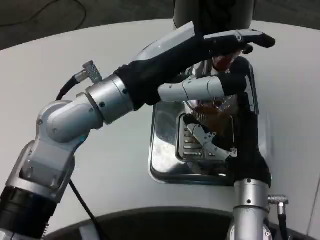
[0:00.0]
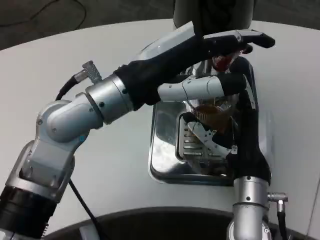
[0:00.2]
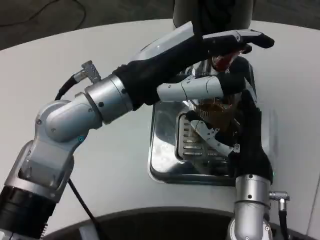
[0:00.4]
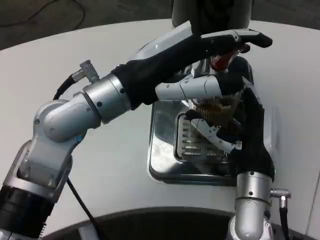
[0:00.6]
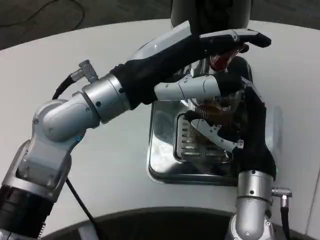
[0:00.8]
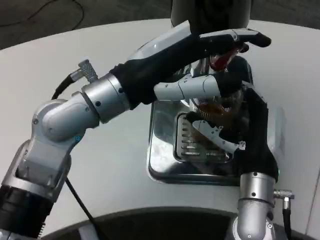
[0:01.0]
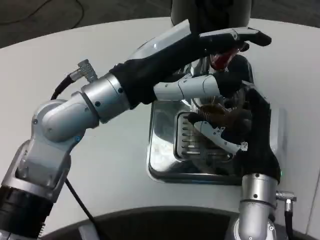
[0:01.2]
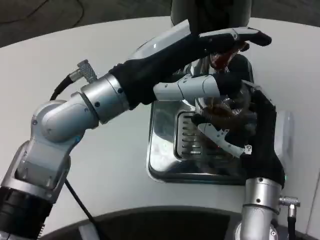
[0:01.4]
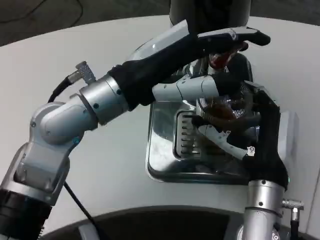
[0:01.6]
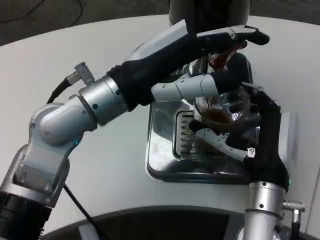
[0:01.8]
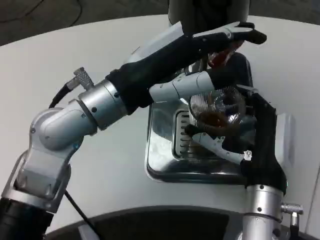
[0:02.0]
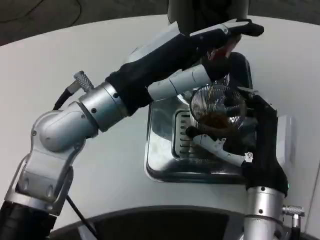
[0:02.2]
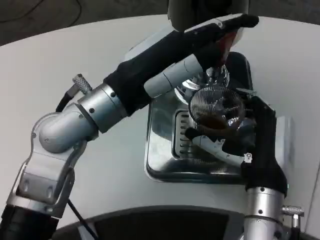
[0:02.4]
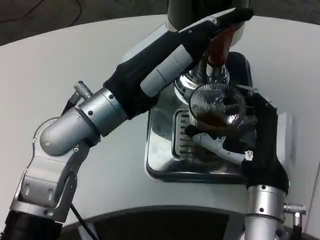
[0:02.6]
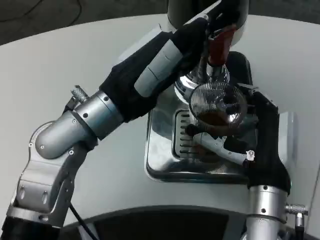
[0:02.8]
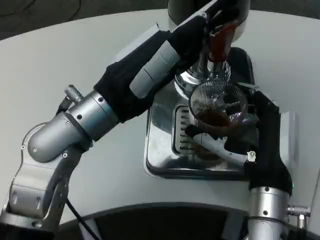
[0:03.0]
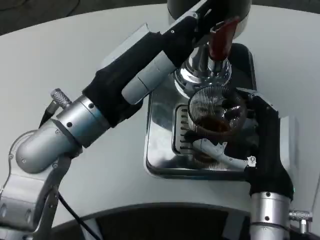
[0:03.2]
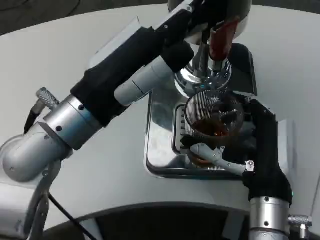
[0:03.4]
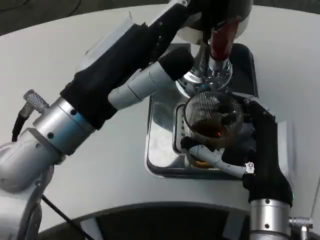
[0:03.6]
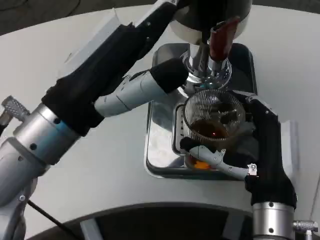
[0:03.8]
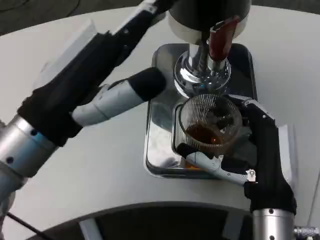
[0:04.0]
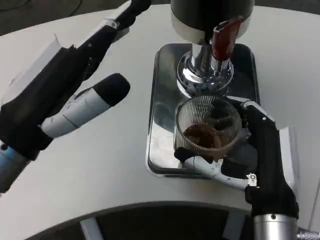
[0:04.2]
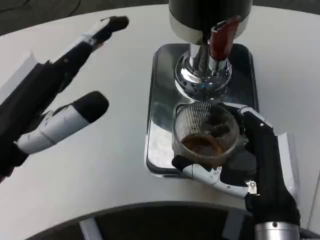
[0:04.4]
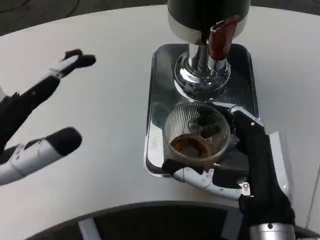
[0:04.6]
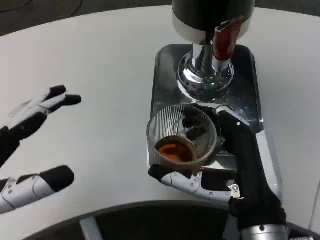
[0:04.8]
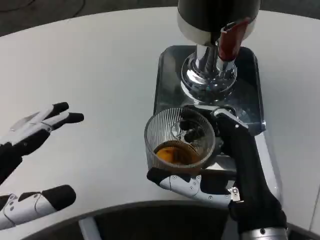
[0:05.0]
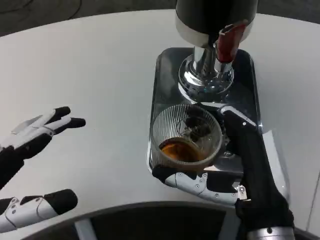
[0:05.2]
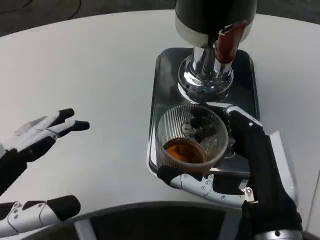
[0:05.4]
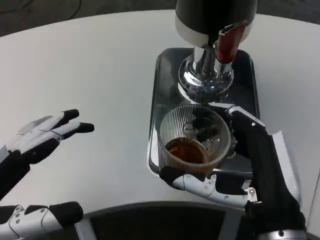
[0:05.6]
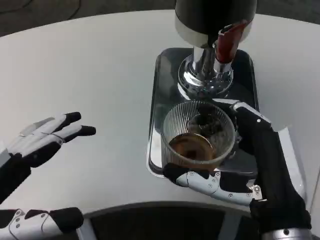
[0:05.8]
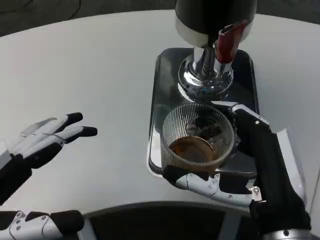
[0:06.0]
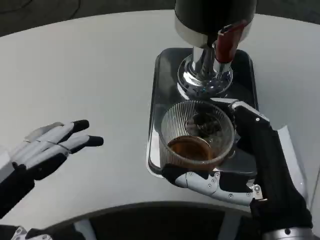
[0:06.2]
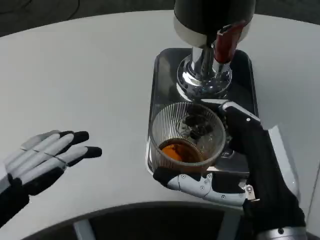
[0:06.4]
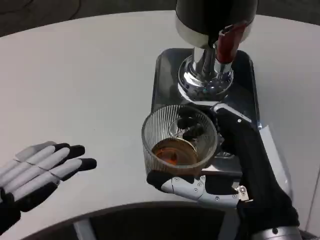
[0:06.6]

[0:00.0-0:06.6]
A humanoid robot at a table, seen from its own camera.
Task of the whole recording: Grasp the cup under the faucet to collect the drink, then remove the cup.
0:03.2 to 0:05.0: The left hand goes some 20 cm backward and to the left, while the right hand moves backward, some 5 cm.

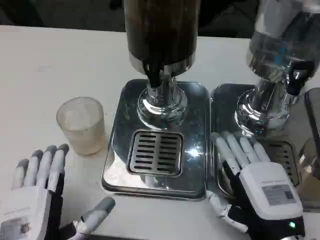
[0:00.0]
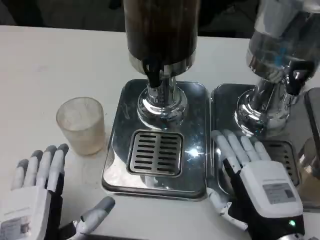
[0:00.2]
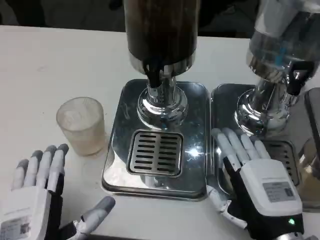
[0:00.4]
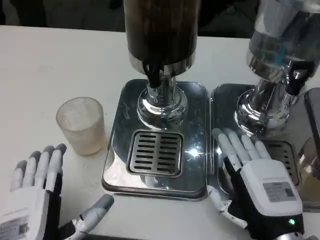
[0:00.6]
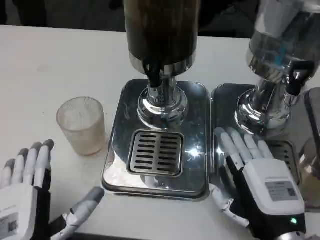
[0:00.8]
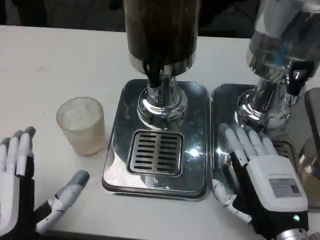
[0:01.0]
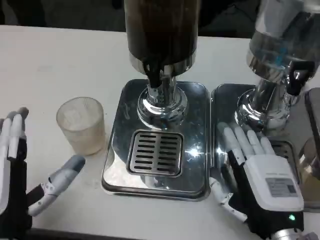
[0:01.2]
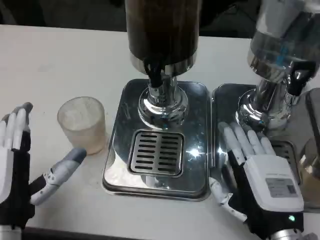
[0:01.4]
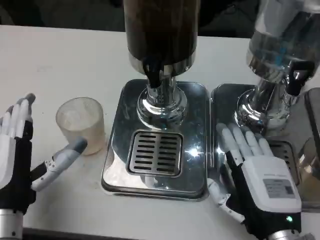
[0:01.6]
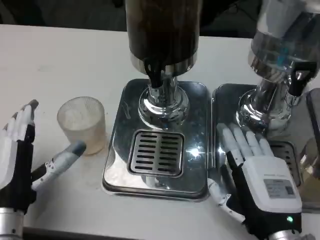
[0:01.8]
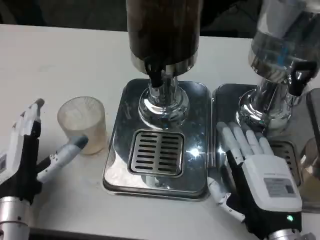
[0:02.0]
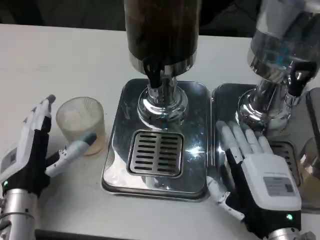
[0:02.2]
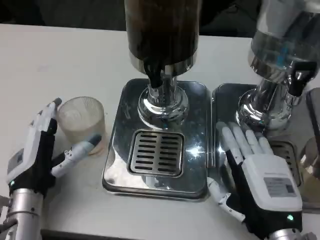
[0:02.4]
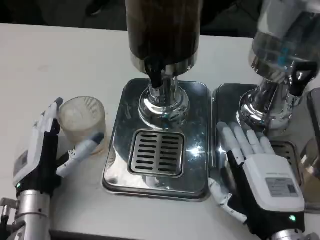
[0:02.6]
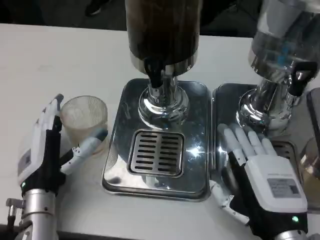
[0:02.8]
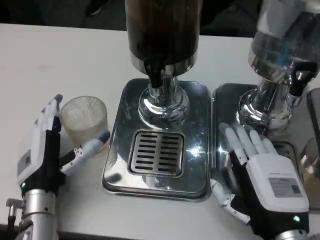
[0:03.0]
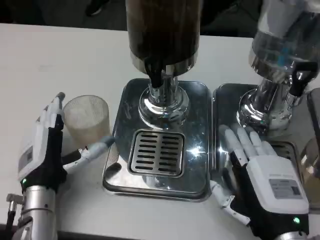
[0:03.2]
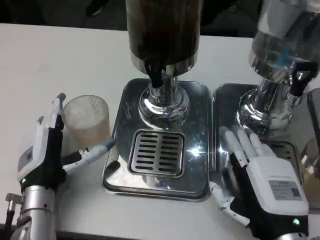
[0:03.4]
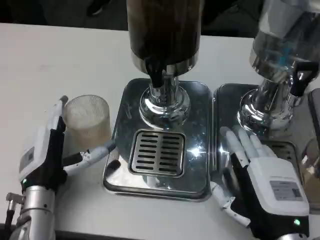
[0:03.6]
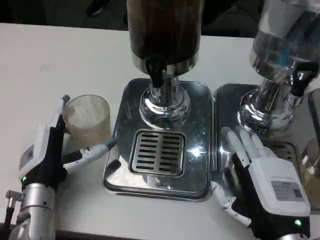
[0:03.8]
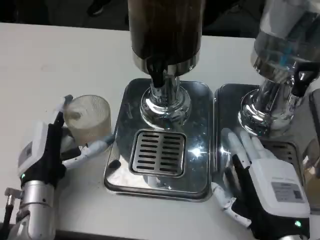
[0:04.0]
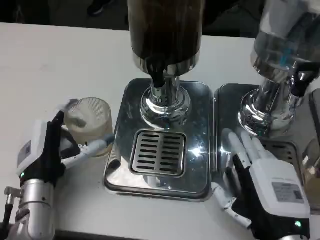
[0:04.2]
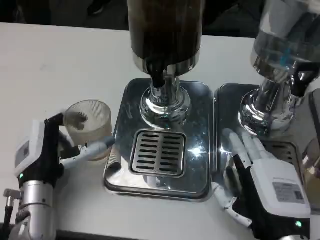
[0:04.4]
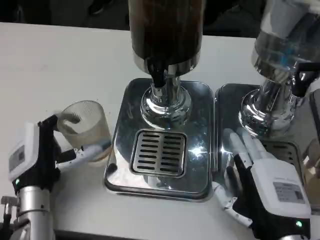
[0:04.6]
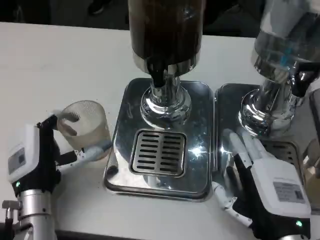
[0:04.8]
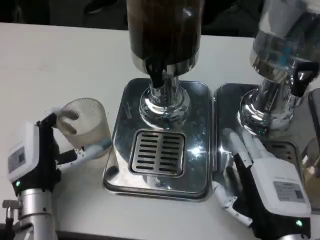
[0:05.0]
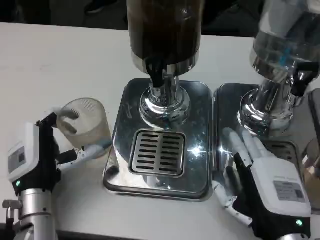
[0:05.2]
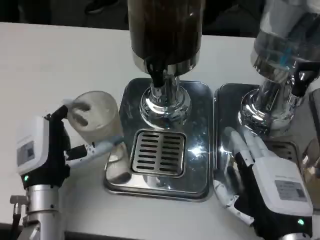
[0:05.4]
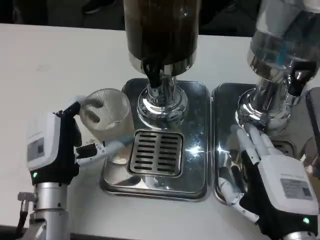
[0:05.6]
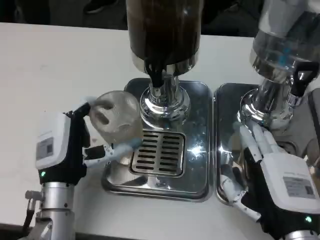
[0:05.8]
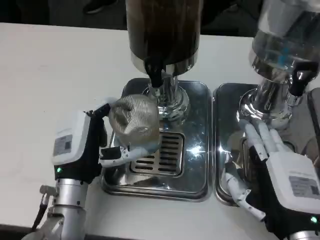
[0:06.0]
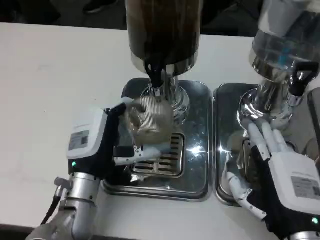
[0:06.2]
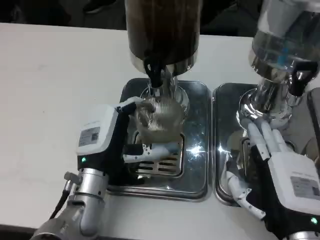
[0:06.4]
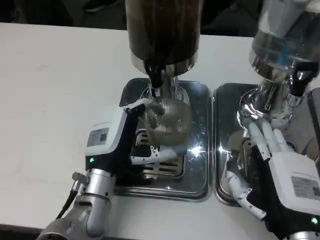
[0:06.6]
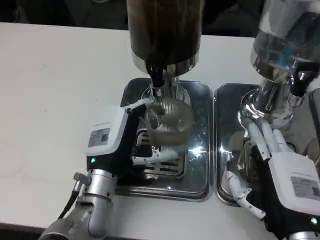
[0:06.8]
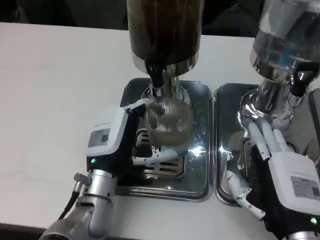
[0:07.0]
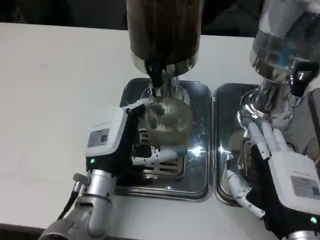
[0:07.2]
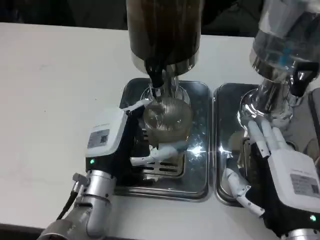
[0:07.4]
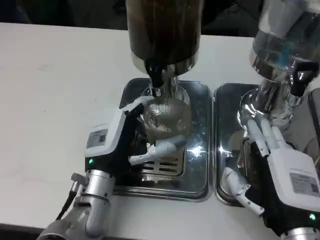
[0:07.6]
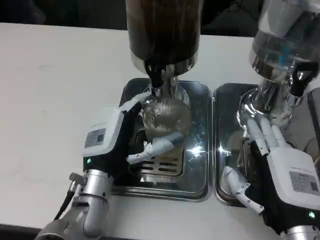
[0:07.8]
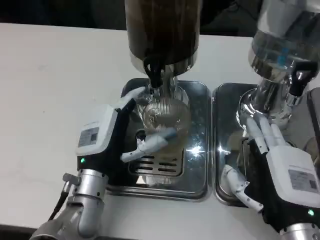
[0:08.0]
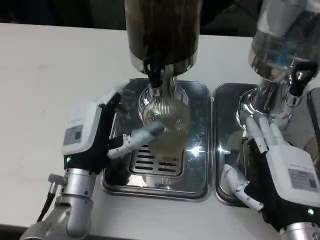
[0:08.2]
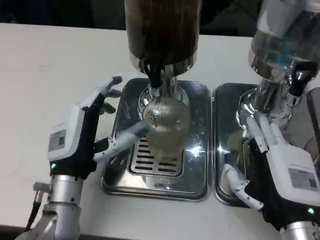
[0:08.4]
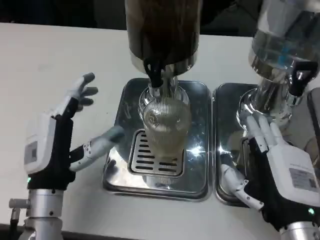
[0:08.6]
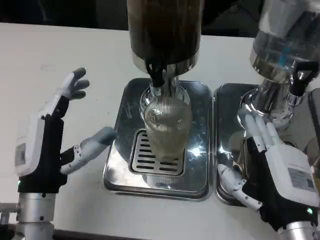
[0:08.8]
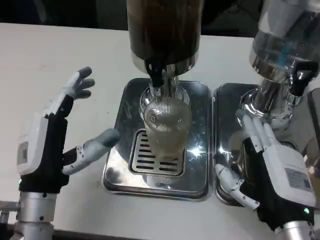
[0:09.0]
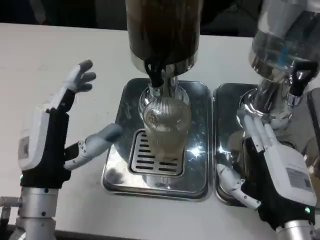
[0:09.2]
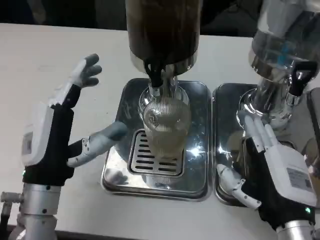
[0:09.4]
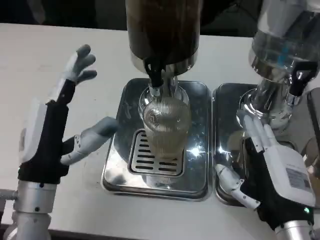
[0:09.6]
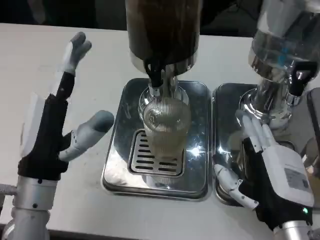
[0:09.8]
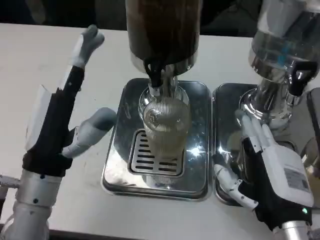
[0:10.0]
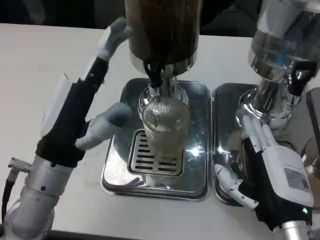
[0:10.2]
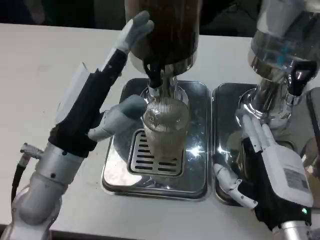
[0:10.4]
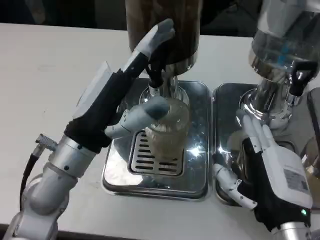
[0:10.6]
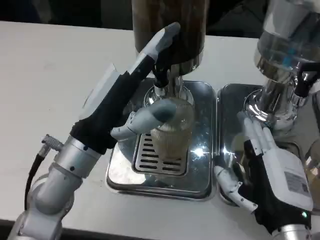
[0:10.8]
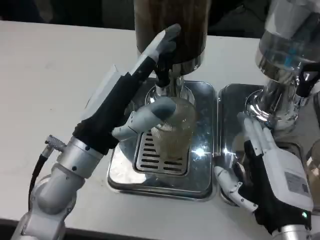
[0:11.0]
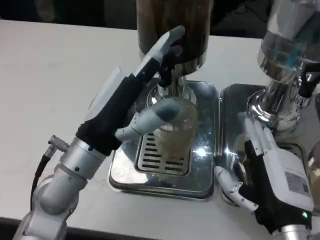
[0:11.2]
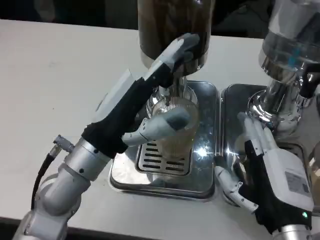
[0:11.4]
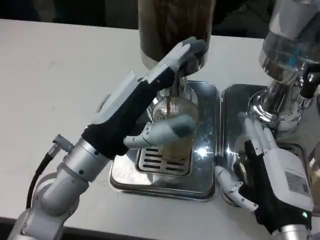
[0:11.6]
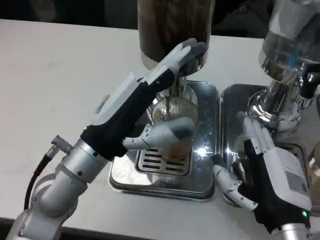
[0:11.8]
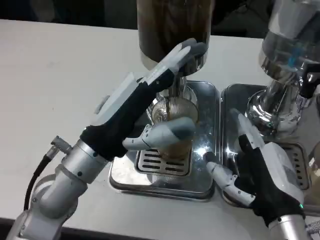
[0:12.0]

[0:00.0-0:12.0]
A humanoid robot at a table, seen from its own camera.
Task of the whole recording: Grasp the cup under the faucet to collect the drink, then remove the cup.
0:00.0 to 0:01.6: The left hand is displaced forward by roughly 10 cm.
0:01.6 to 0:03.0: The left hand moves forward, about 5 cm.
0:03.0 to 0:04.4: The hands move only a little.
0:07.6 to 0:09.0: The left hand moves to the left, about 5 cm.
0:09.0 to 0:10.4: The left hand travels upward by some 5 cm.

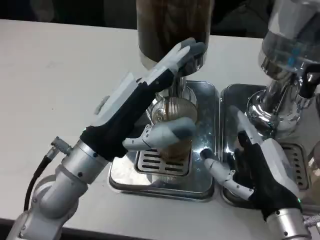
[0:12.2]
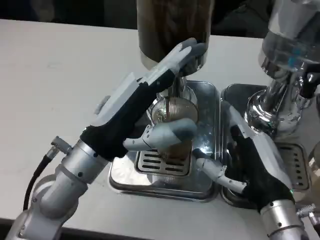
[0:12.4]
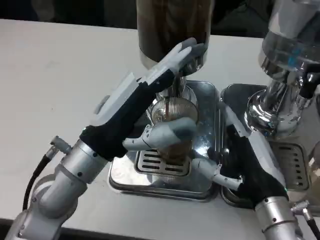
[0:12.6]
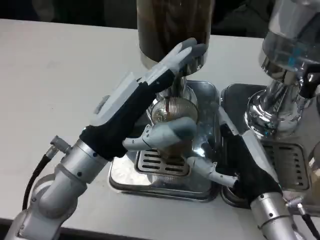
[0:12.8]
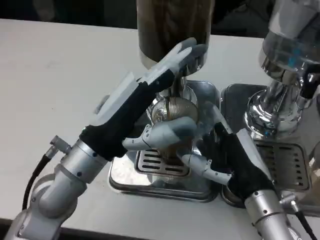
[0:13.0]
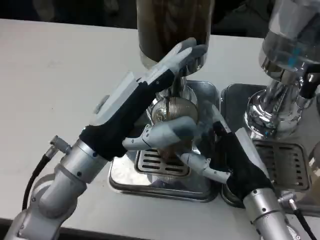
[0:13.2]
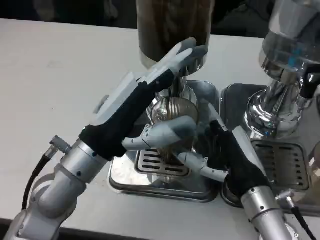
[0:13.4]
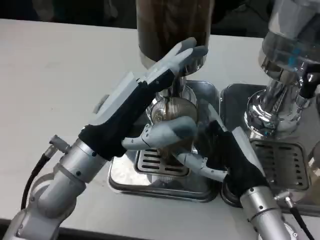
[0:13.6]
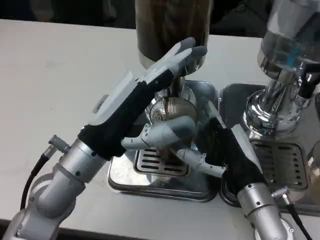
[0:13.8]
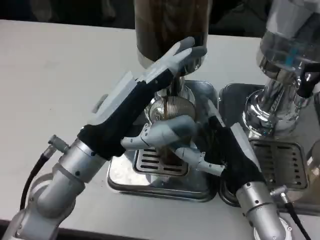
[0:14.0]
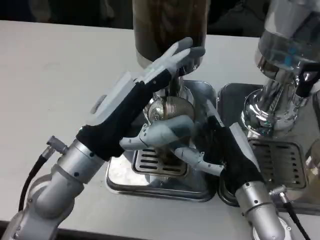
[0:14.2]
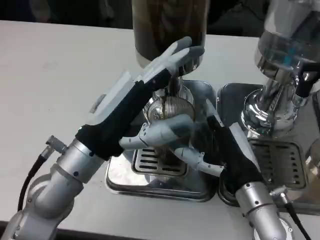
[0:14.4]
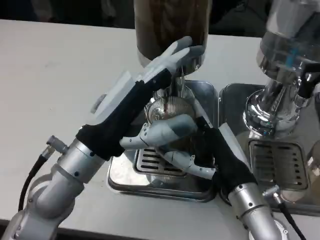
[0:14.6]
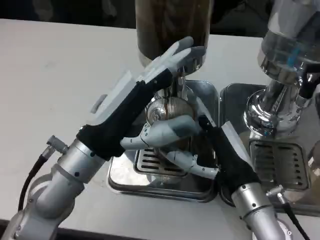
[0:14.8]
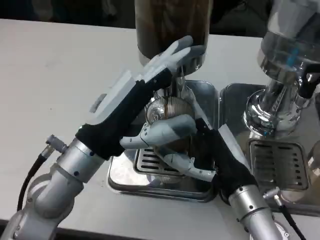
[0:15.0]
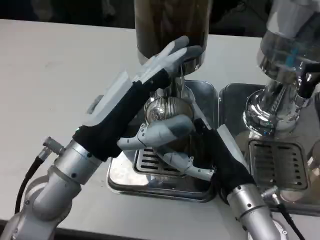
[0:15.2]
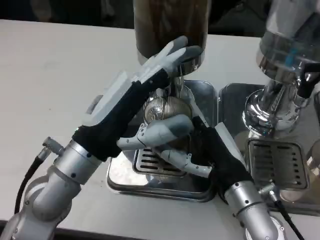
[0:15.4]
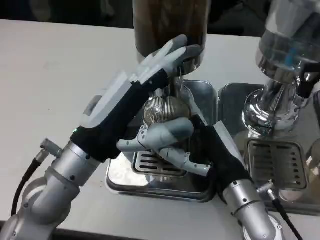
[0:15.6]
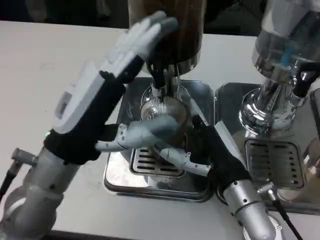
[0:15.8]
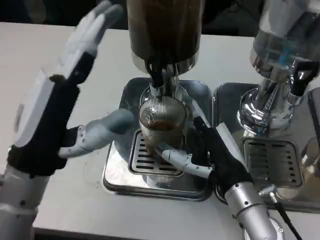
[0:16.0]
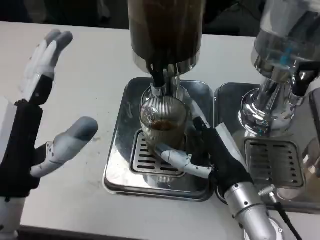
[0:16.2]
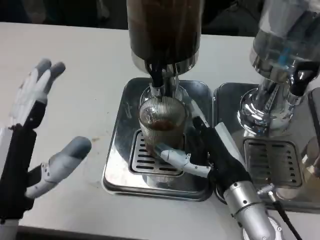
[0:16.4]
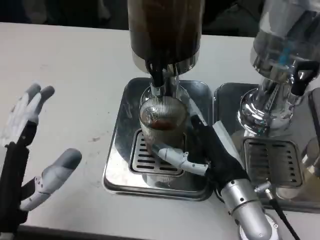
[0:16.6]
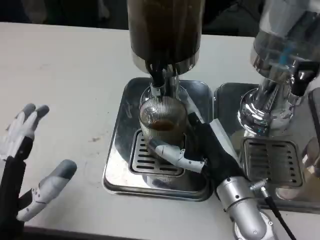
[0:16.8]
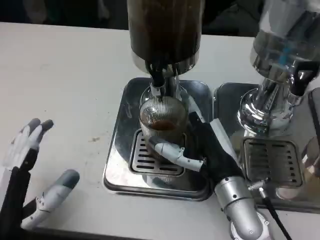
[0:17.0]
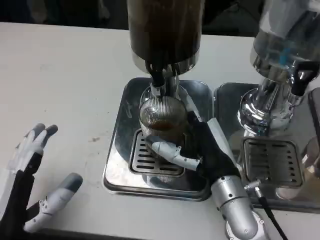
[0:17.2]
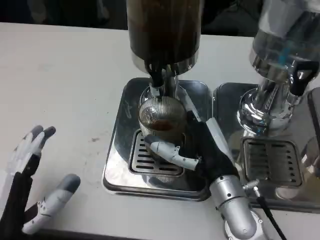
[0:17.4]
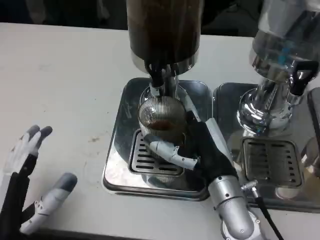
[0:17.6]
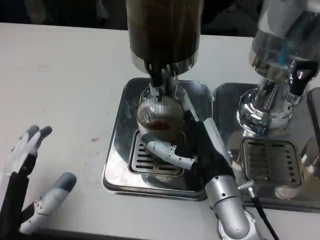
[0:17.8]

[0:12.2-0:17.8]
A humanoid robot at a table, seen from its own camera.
Task of the whole recording: Grasp the cup under the faucet to collect the drink, then remove the cup.
0:12.2 to 0:15.0: The hands make only small movements.
0:15.0 to 0:16.4: The left hand heads backward and to the left, covering approximately 10 cm.
0:16.4 to 0:17.8: The left hand moves roughly 5 cm.
